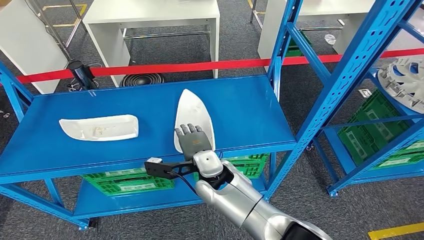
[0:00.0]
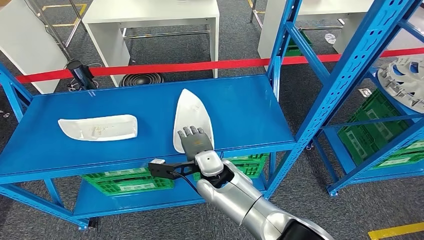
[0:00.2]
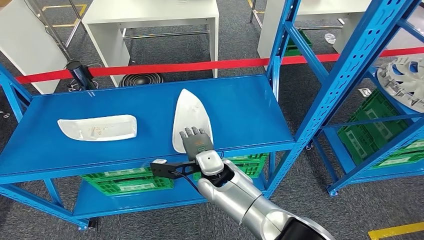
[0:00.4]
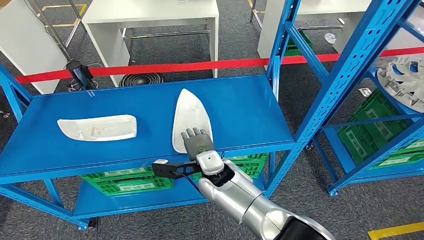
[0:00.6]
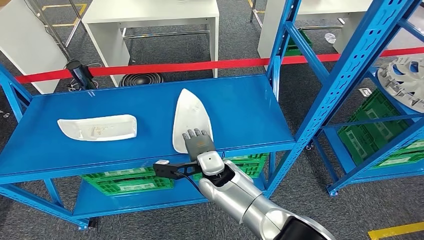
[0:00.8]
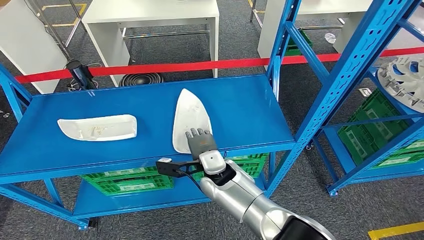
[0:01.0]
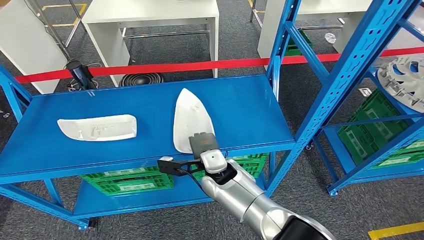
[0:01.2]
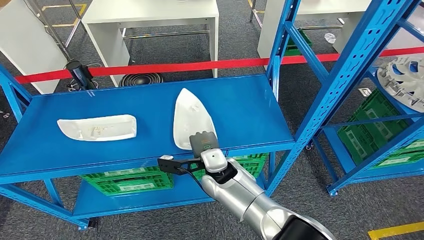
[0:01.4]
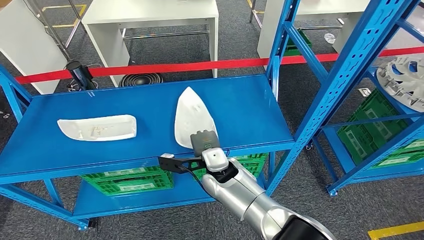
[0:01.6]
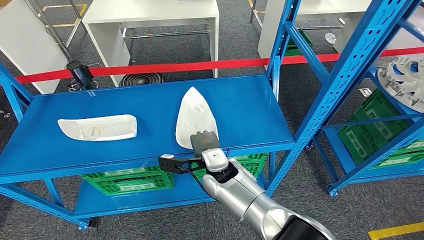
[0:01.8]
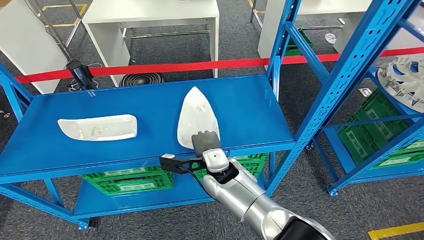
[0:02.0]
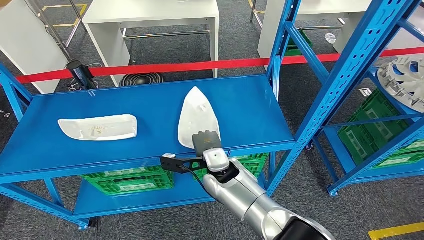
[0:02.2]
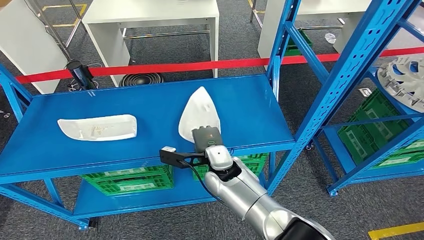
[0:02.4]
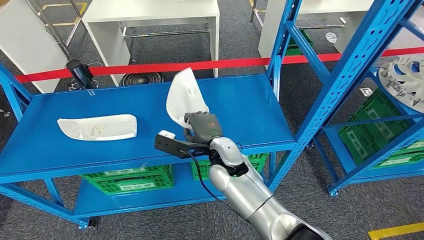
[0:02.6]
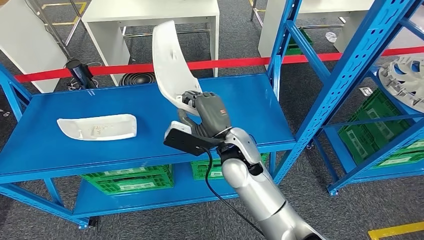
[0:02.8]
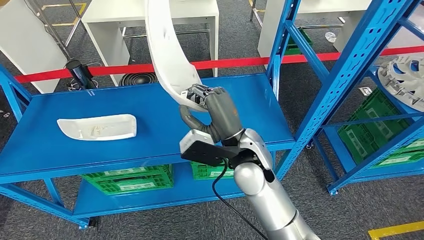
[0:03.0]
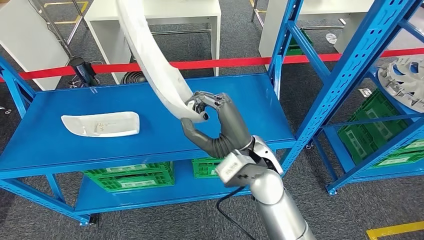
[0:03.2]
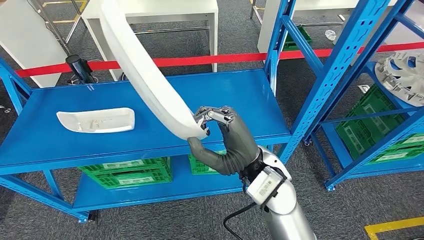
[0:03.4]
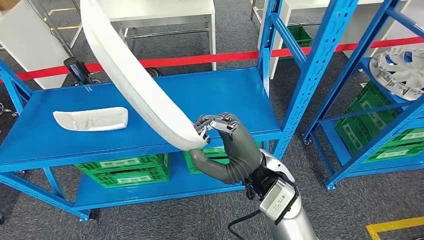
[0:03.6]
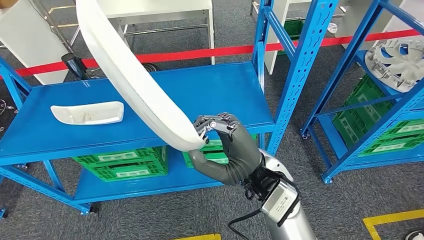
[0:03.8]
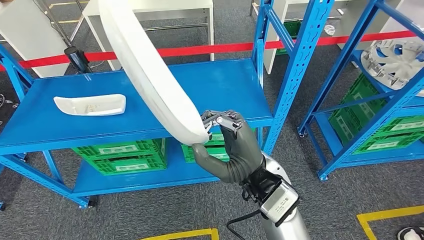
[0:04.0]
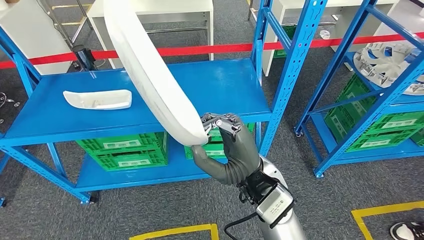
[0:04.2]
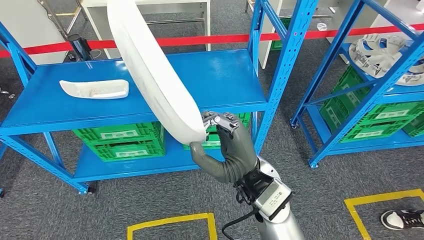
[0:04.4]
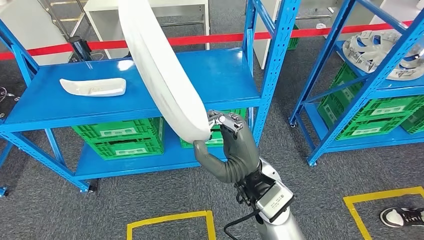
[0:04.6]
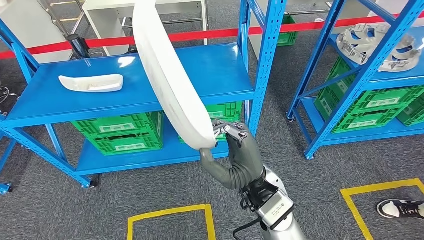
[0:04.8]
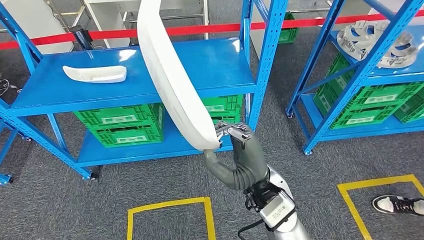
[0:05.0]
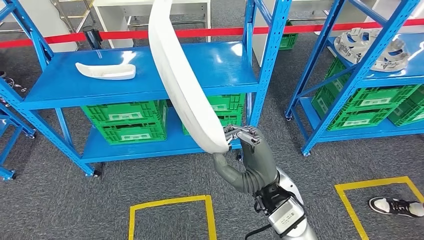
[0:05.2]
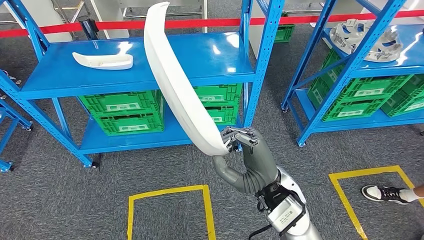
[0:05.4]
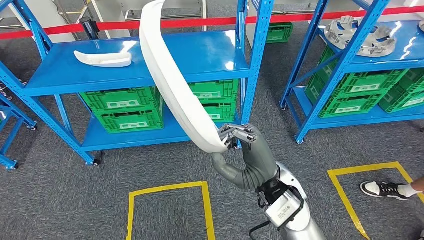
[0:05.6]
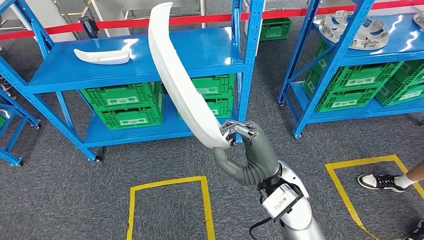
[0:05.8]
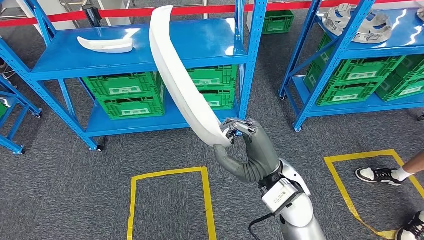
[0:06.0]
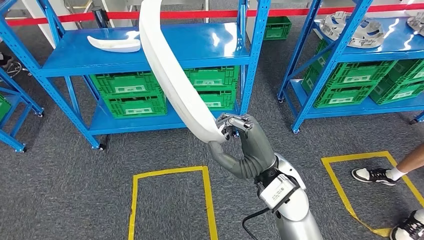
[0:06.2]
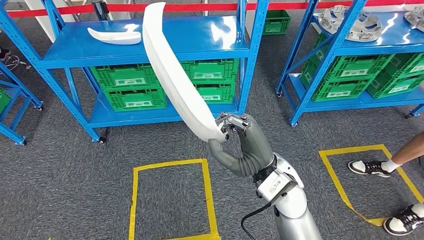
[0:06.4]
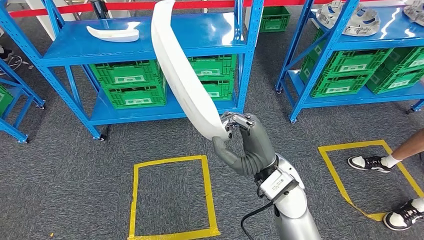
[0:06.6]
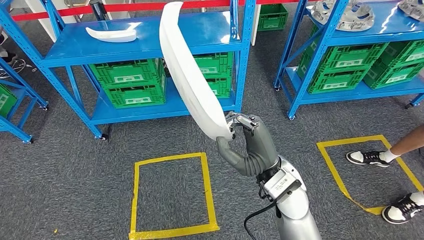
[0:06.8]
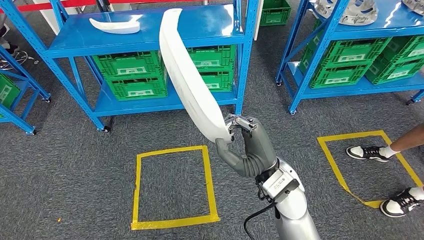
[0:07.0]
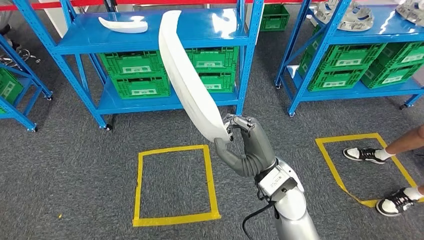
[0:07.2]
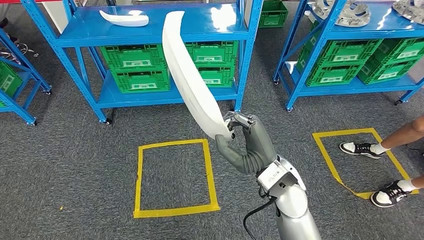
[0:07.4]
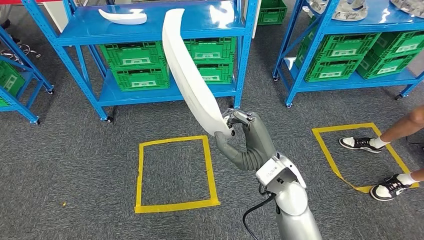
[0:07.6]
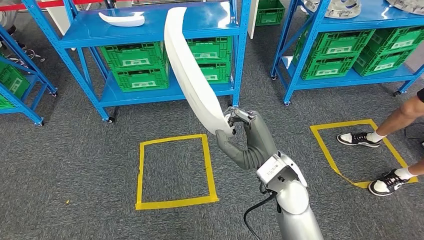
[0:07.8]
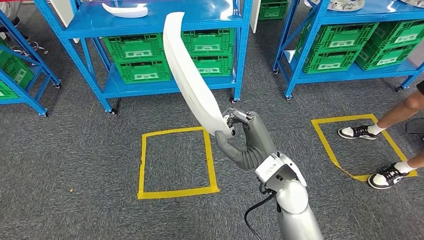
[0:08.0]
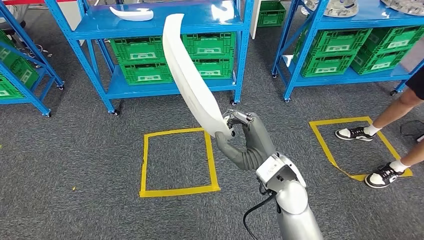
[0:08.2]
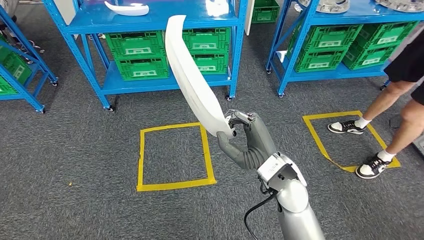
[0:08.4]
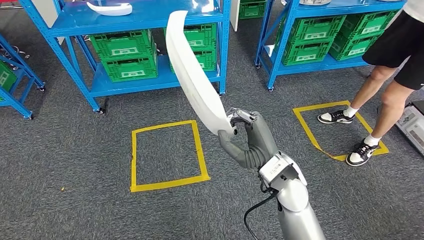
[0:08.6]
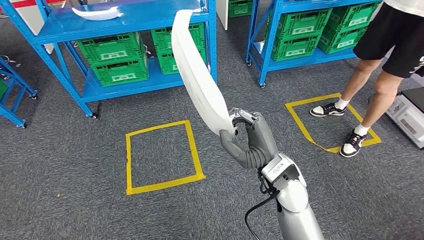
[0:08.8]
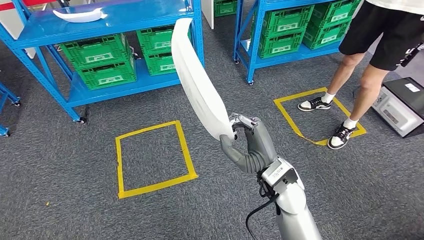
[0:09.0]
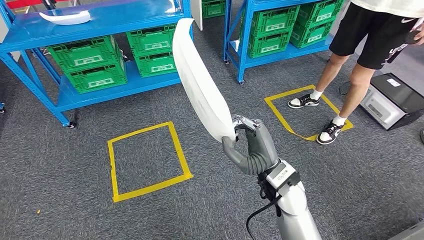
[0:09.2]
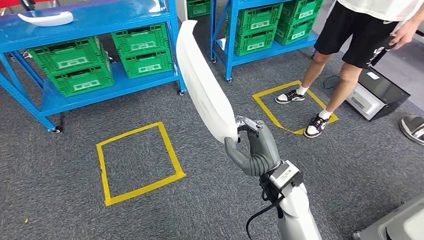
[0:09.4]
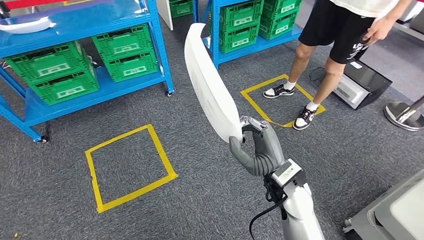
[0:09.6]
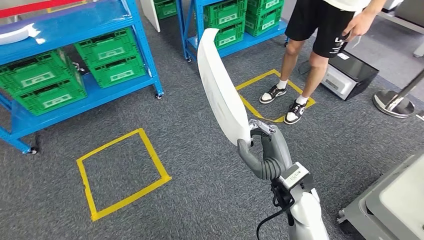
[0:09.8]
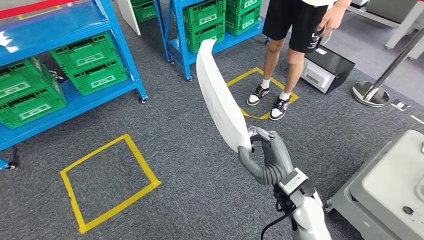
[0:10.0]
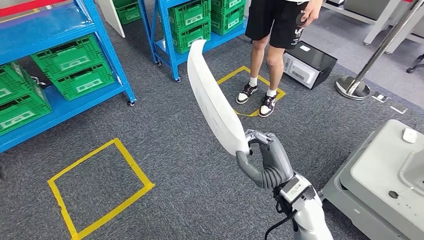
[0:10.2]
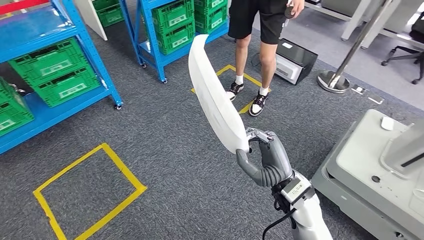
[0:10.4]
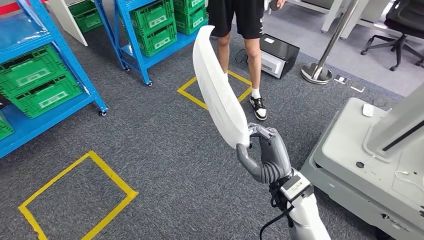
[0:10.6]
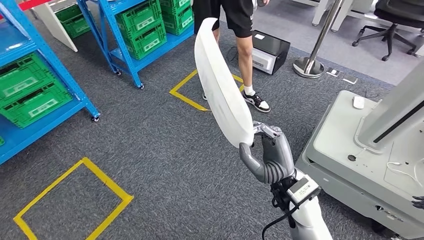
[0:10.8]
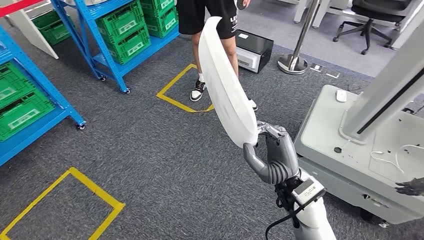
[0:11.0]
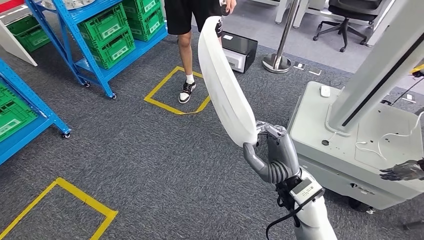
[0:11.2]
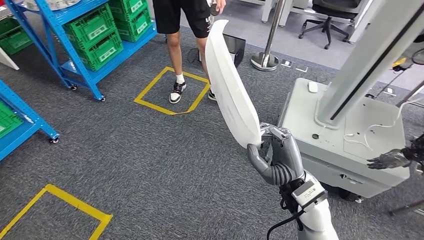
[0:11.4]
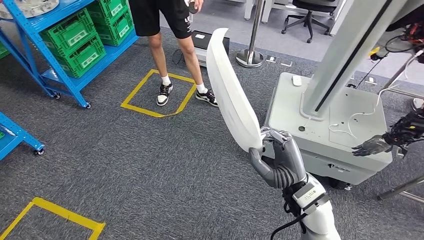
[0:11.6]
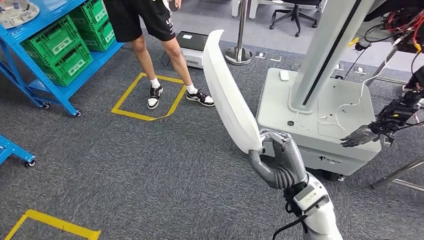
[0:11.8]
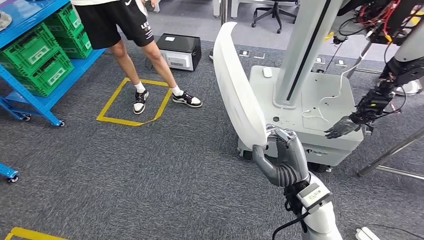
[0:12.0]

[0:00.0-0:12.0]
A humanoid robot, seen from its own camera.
Step, 0:00.0 to 0:03.4: Pick up the small component from the shelf.
0:00.0 to 0:01.6: There are only small adjustments of the hands.
0:01.6 to 0:03.0: The right hand moves upward, about 10 cm.

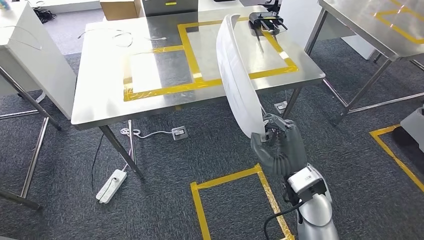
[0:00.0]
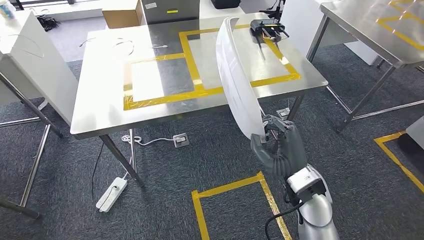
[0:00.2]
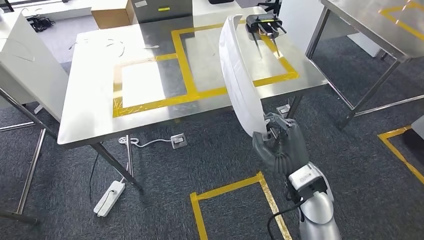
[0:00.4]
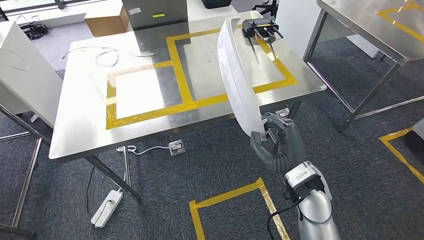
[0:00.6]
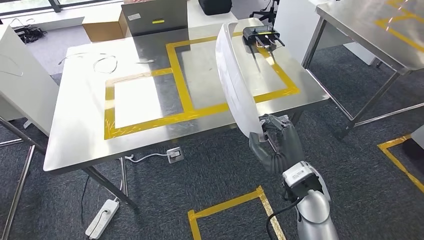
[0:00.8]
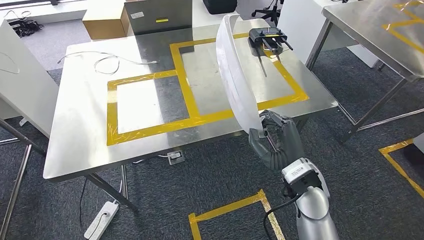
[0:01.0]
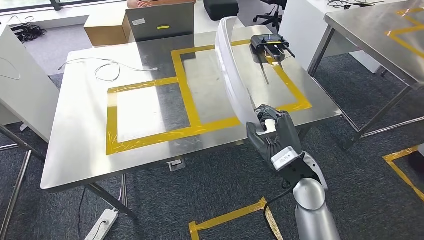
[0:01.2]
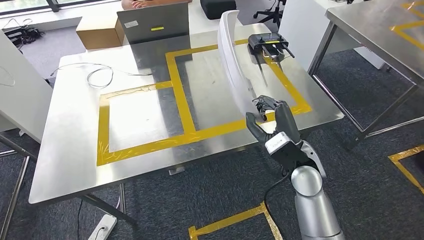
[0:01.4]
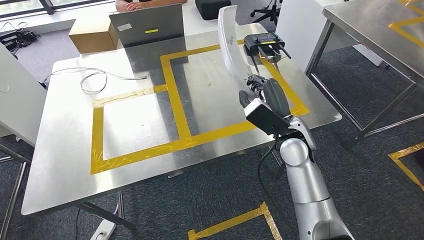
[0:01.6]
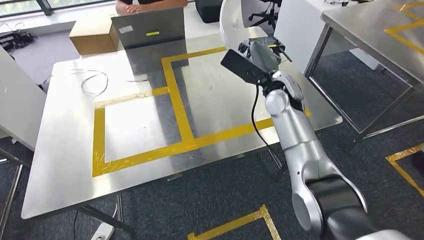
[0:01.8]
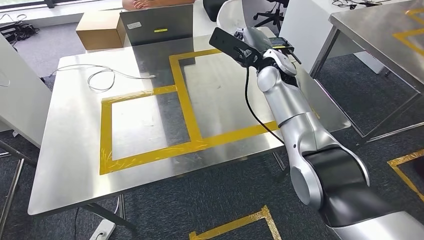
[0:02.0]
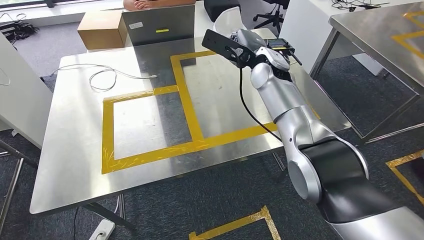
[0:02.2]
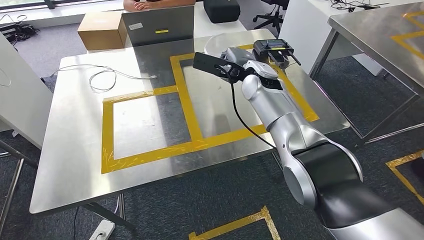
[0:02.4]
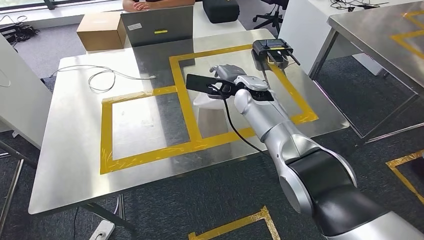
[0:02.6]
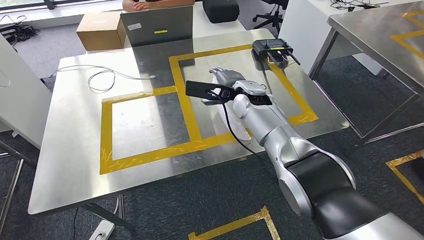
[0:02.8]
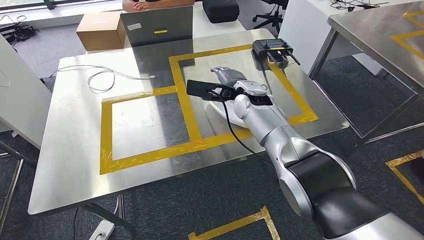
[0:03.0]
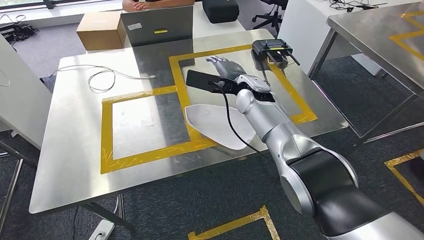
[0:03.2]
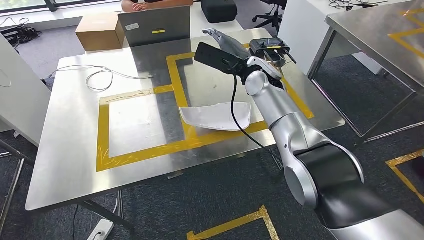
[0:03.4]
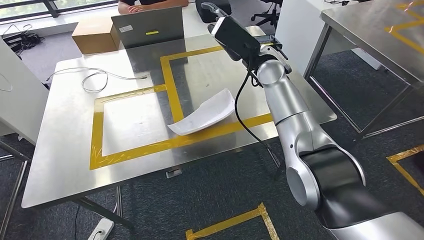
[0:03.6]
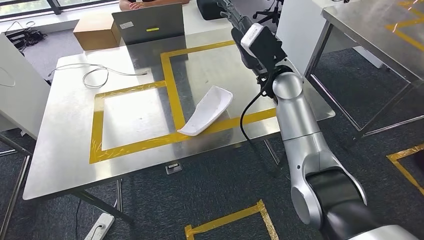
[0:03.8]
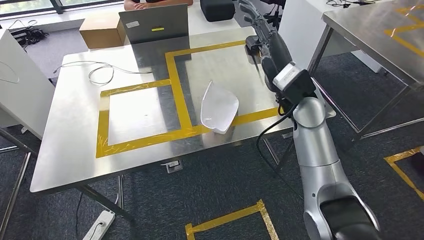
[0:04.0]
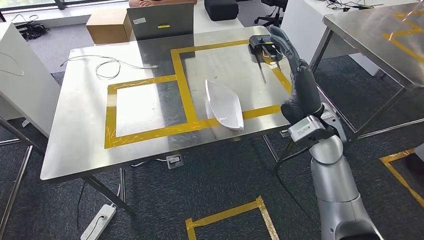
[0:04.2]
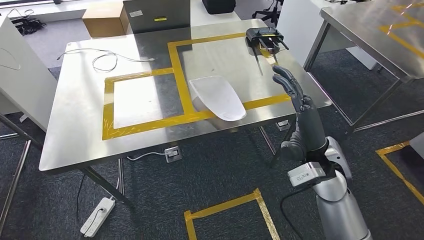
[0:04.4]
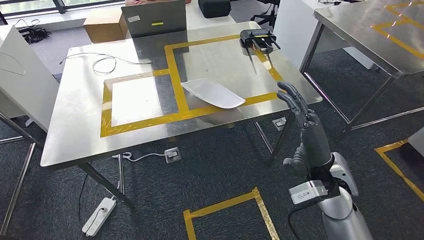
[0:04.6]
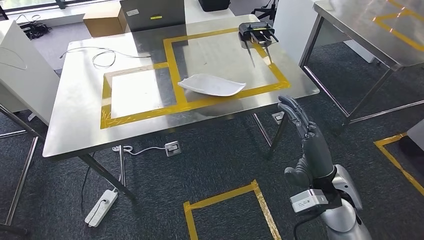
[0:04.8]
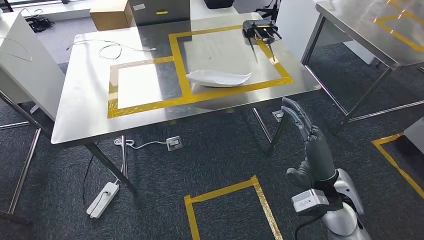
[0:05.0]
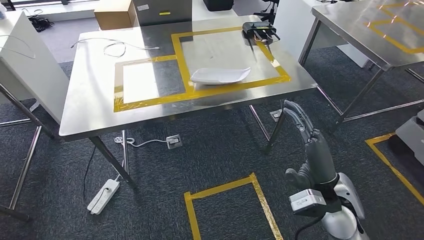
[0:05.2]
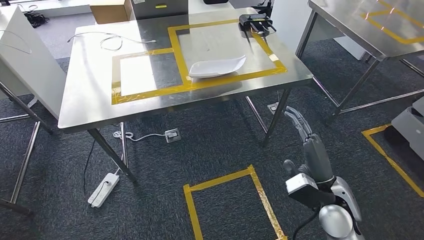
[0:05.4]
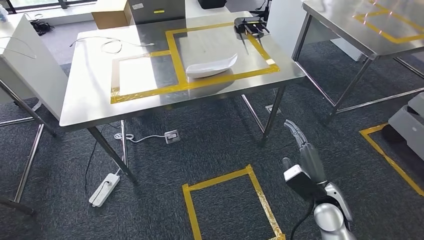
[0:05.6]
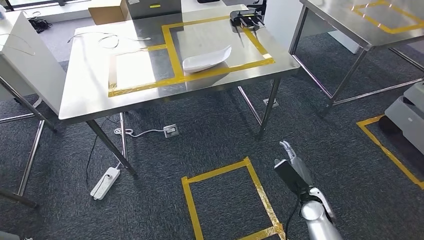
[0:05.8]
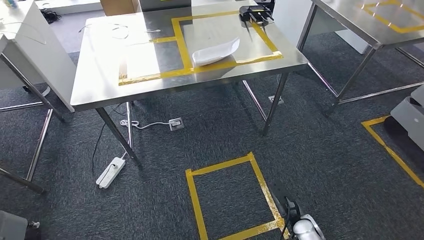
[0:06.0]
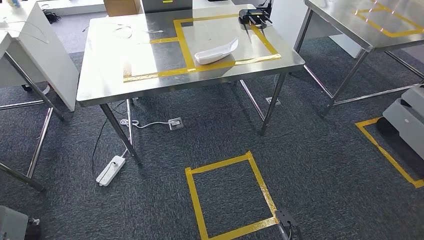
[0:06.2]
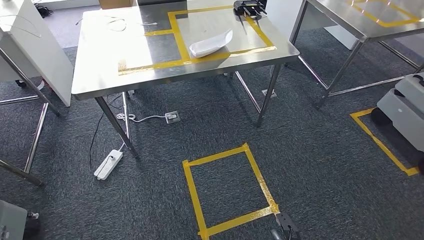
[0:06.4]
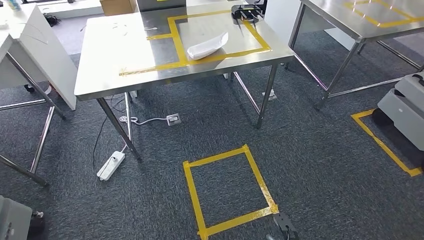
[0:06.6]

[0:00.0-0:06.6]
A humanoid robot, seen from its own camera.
Step, 0:01.6 to 0:04.4: Insert the small component into the corresponding slot on the workbench.
